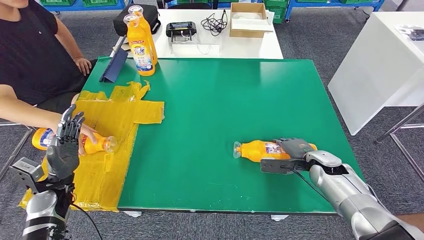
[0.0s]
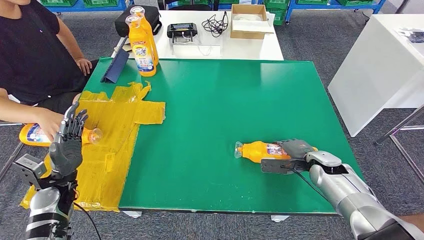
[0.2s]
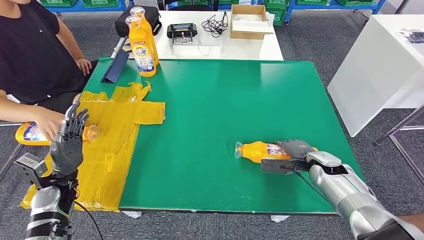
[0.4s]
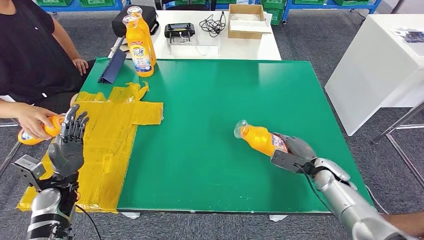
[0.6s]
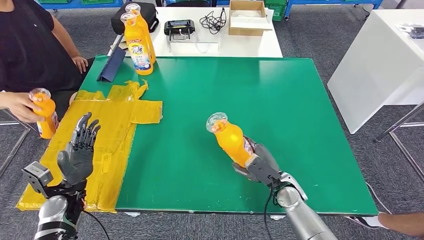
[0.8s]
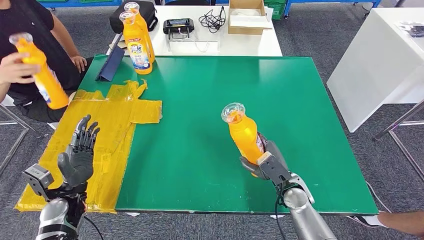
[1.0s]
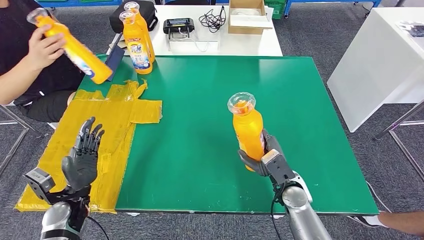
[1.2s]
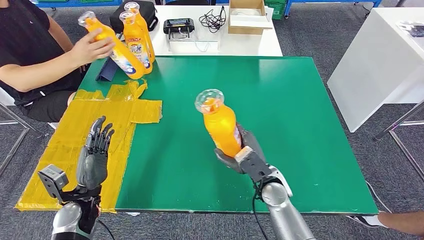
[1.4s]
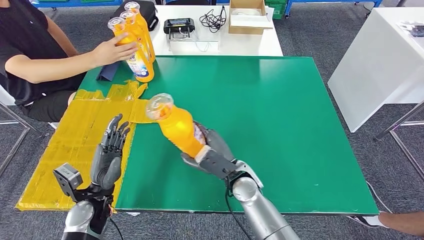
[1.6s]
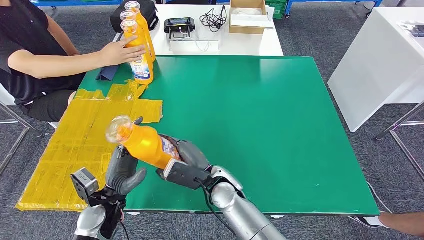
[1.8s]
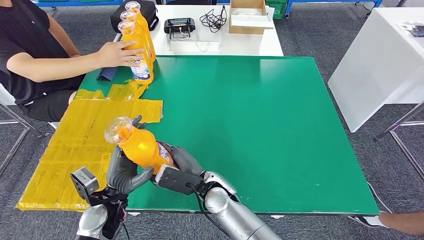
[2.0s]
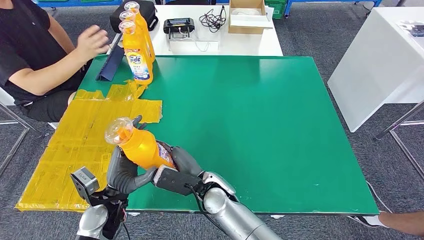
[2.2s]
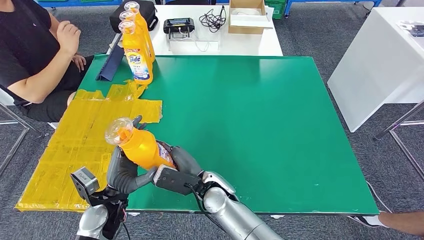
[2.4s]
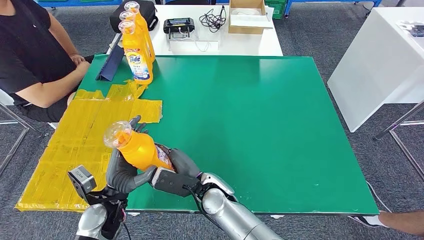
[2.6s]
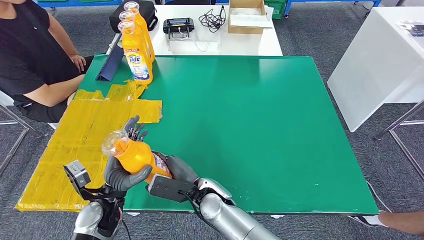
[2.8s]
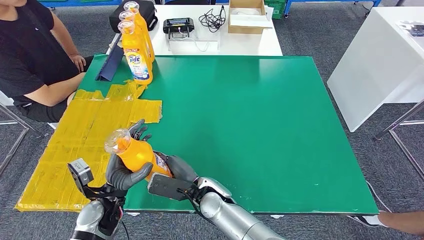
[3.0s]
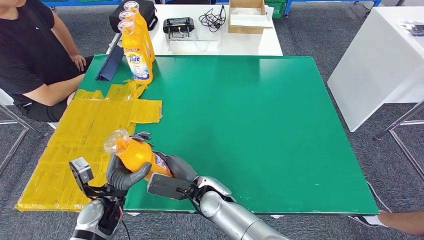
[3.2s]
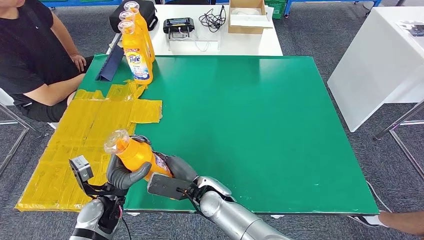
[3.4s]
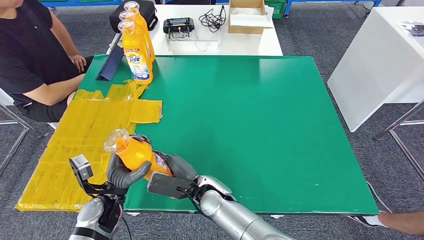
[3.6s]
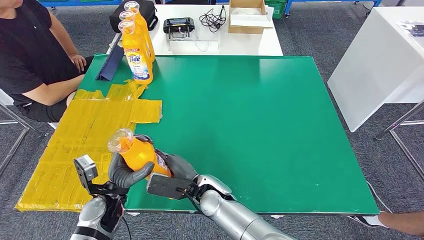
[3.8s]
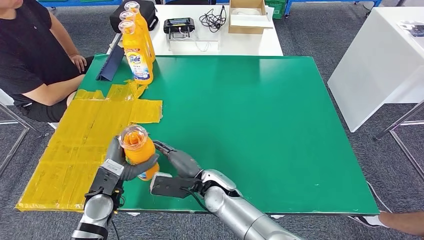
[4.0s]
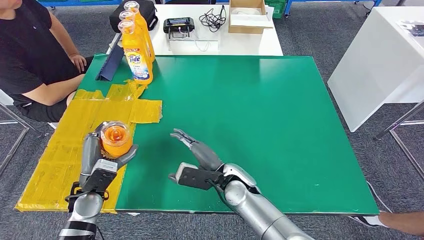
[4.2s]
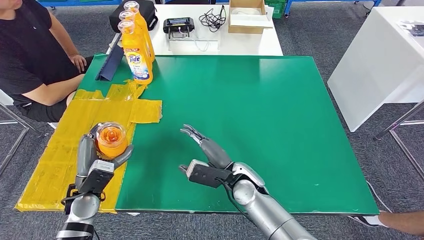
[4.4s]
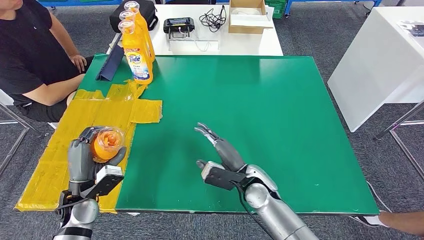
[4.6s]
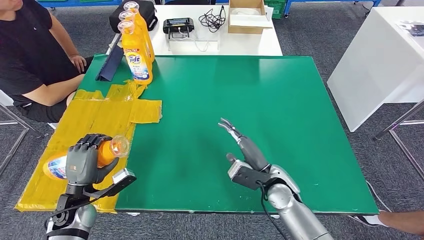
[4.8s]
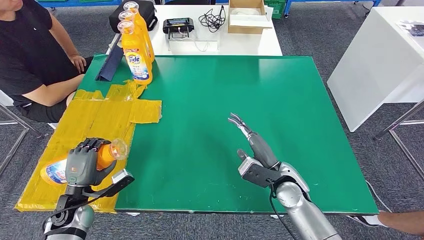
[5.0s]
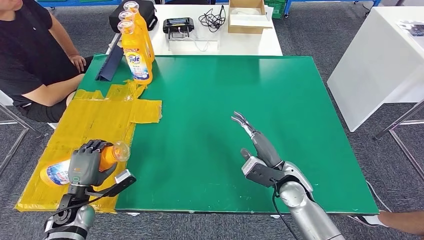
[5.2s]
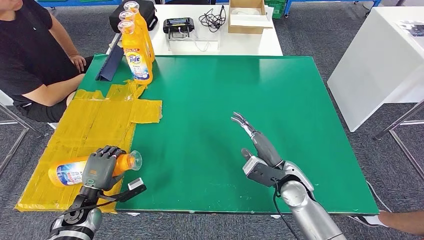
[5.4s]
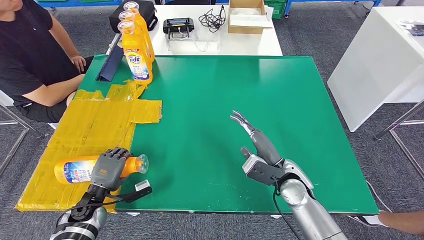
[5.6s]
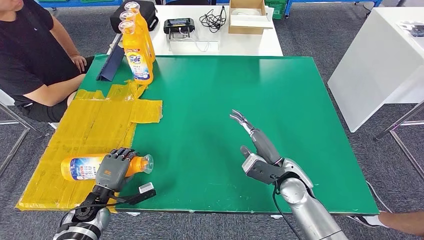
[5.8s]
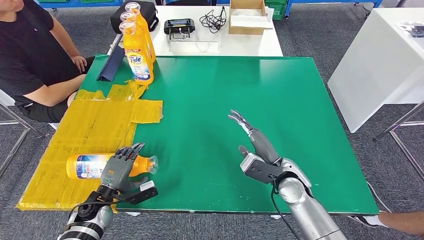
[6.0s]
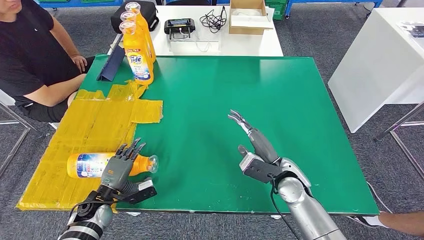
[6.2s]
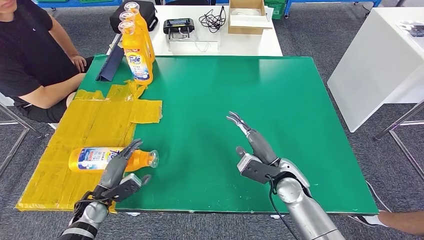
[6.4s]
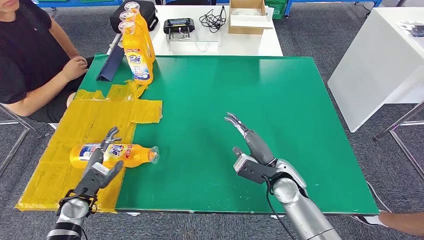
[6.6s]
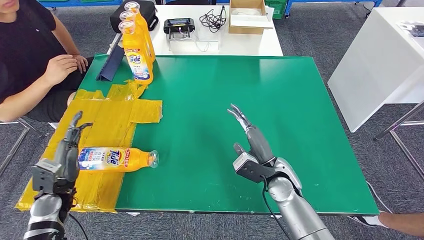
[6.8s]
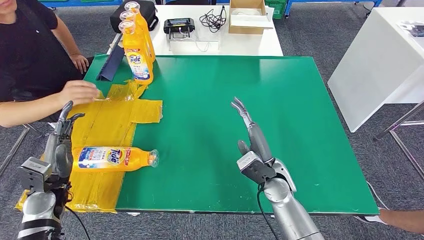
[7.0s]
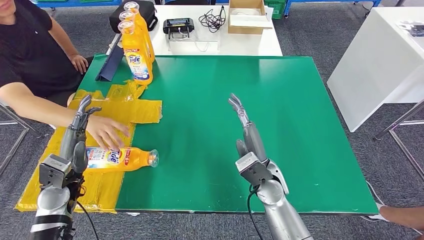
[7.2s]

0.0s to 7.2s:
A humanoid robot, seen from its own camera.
Step, 0.0s to 3.2s: Pick up the fast-moving consumer goods bottle from the table.
Step, 3.4s to 7.2s: Flip the fast-moving consumer goods bottle to the front side.
2.8s to 4.4s: The left hand shifts about 5 cm to the left; the right hand moves to the right, some 10 cm.
4.4s to 5.8s: The left hand travels downward by about 10 cm. Meanwhile the right hand heads to the right, covering roughly 10 cm.
5.8s to 7.2s: The right hand is displaced to the left by roughly 5 cm. Meanwhile the left hand moves upward, approximately 10 cm.
